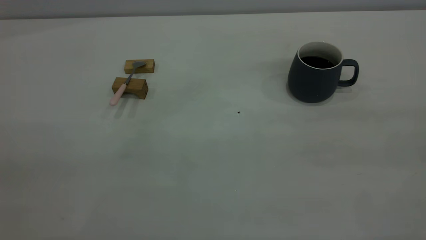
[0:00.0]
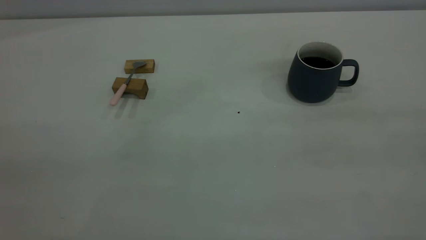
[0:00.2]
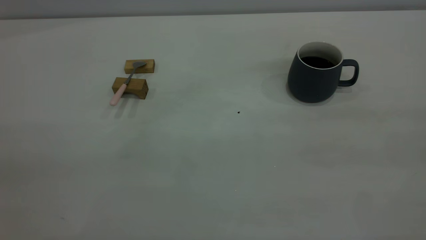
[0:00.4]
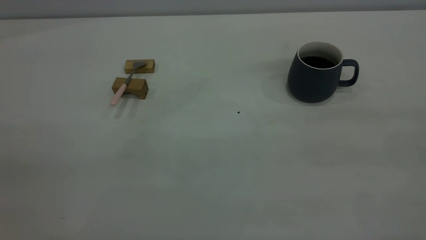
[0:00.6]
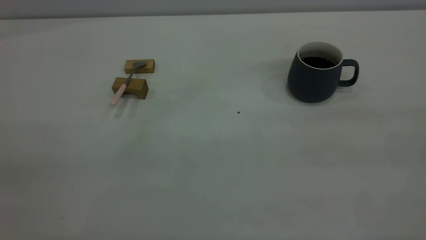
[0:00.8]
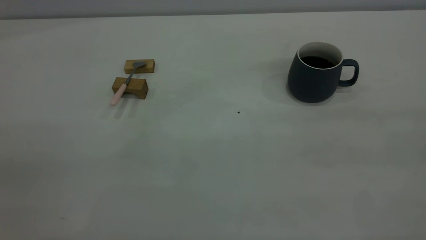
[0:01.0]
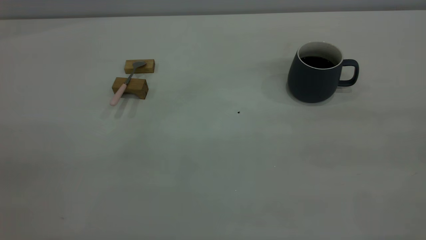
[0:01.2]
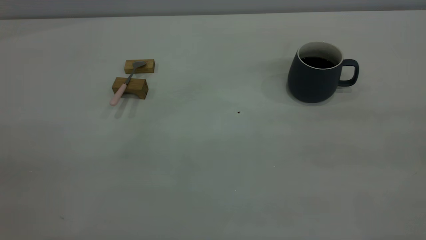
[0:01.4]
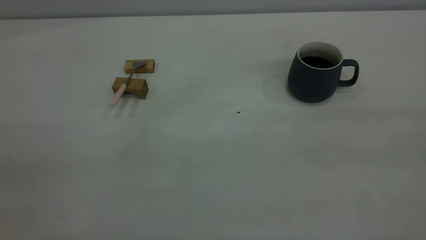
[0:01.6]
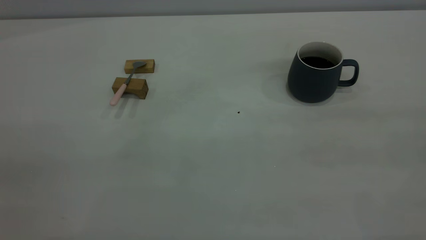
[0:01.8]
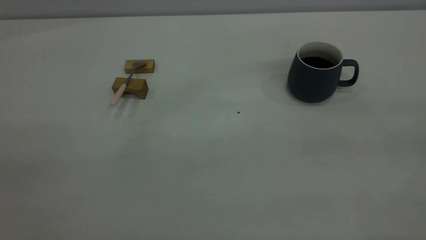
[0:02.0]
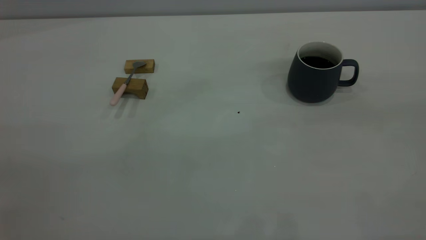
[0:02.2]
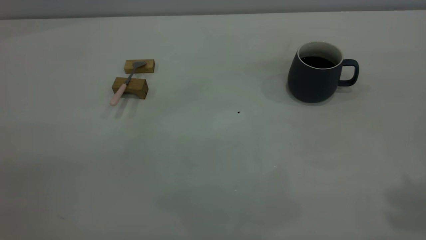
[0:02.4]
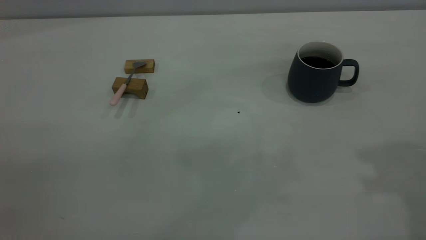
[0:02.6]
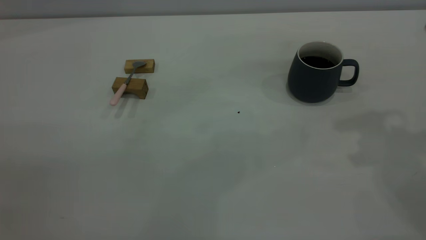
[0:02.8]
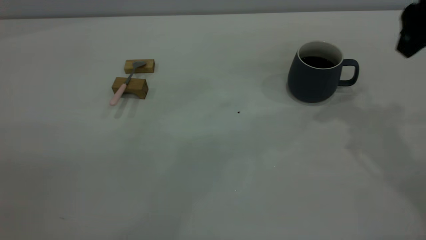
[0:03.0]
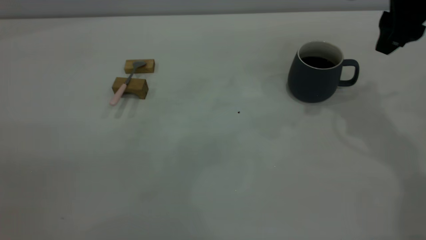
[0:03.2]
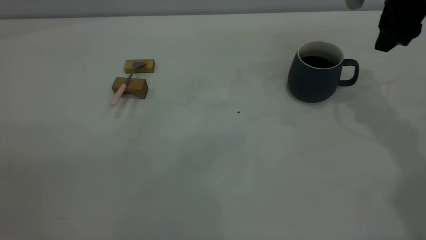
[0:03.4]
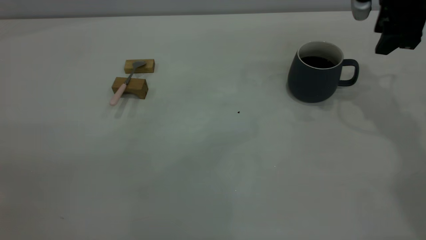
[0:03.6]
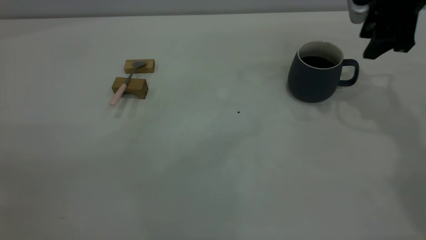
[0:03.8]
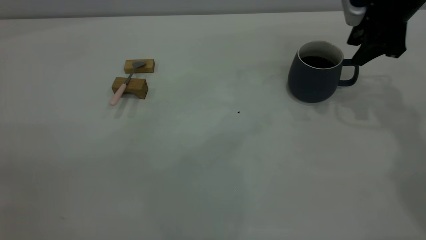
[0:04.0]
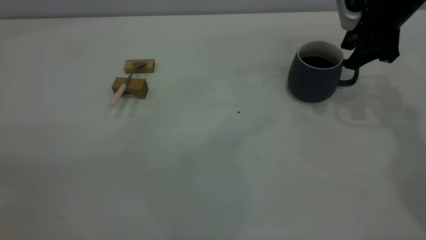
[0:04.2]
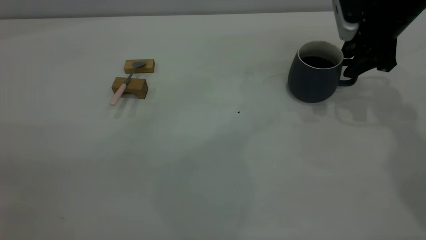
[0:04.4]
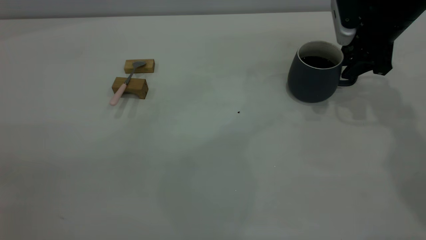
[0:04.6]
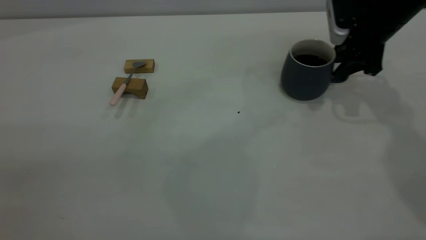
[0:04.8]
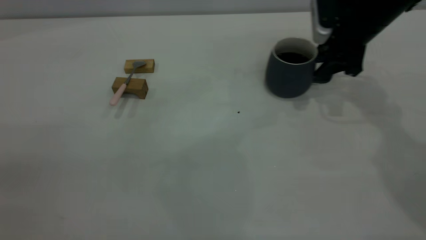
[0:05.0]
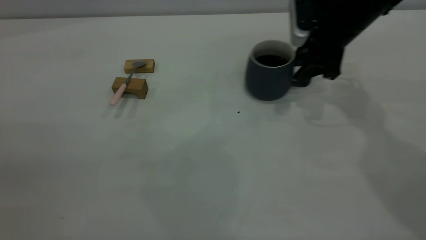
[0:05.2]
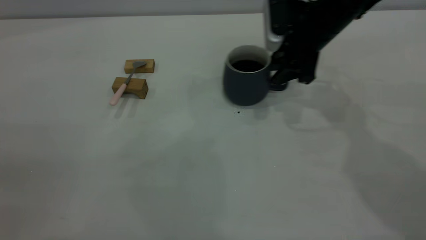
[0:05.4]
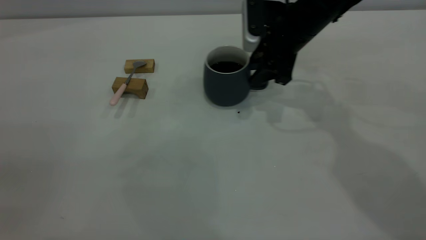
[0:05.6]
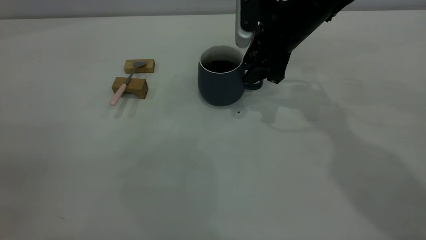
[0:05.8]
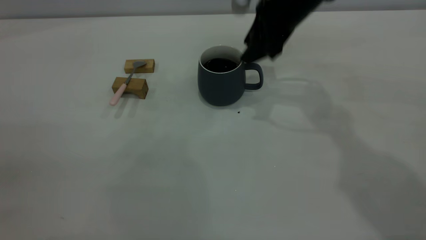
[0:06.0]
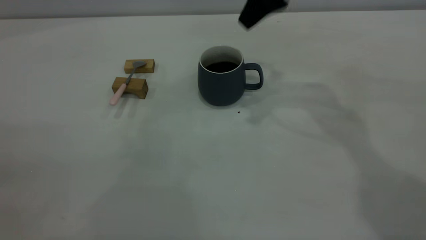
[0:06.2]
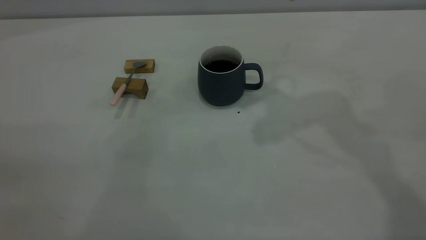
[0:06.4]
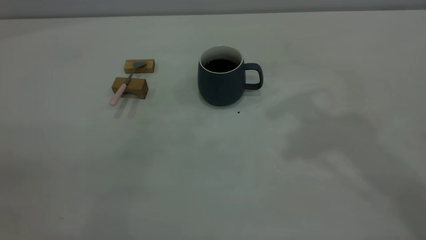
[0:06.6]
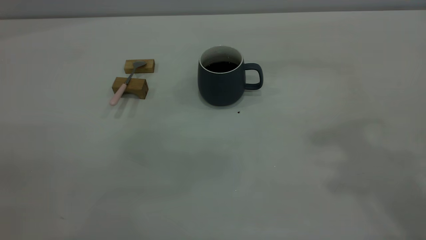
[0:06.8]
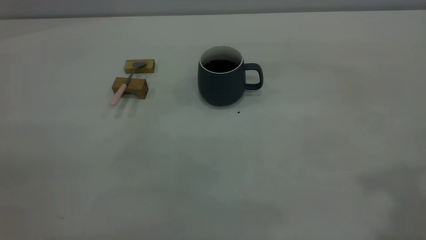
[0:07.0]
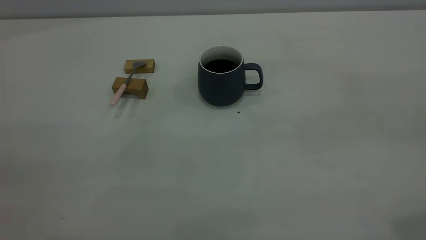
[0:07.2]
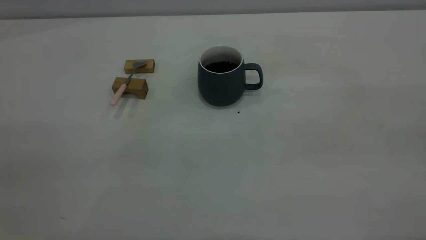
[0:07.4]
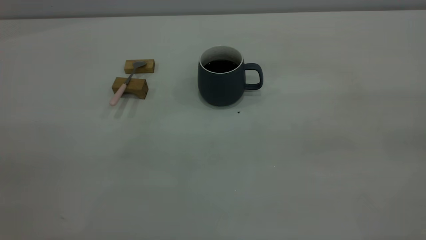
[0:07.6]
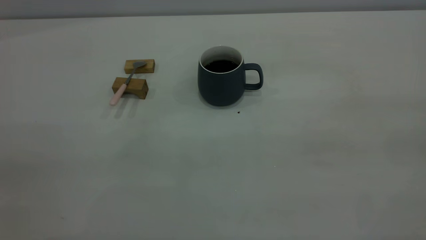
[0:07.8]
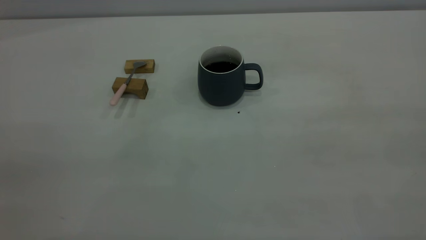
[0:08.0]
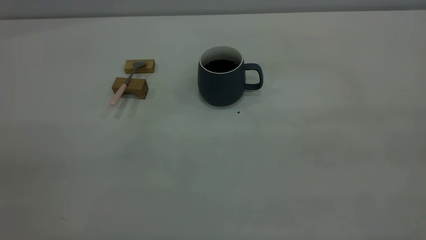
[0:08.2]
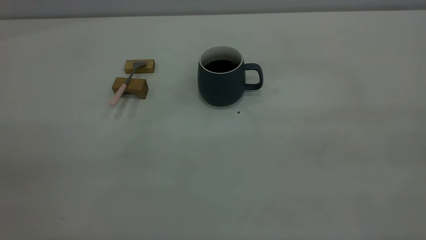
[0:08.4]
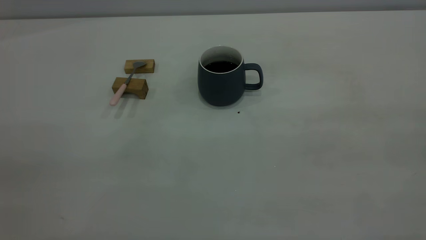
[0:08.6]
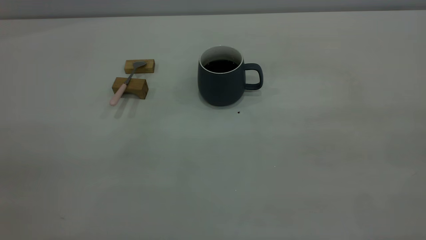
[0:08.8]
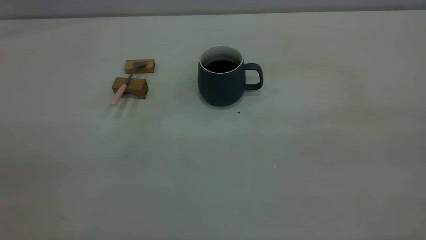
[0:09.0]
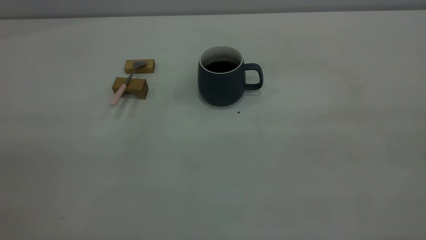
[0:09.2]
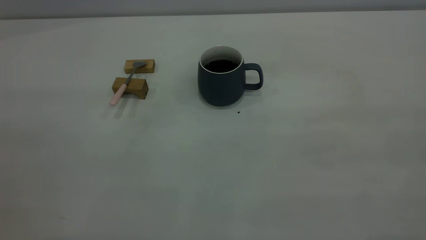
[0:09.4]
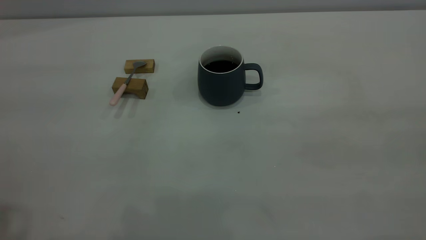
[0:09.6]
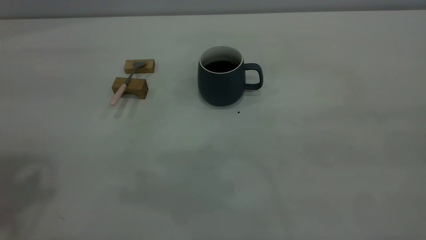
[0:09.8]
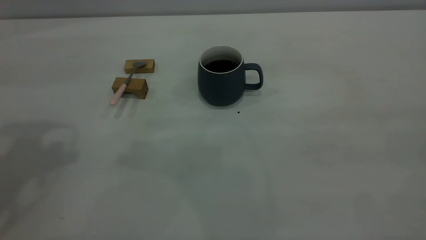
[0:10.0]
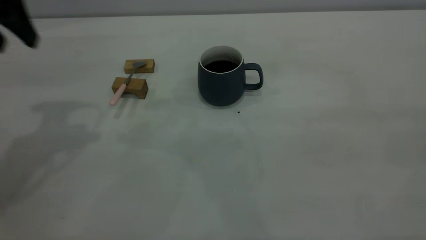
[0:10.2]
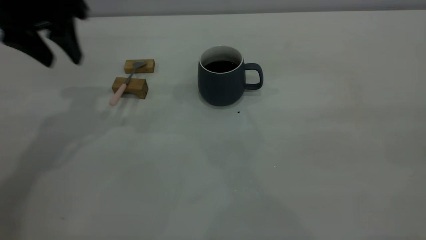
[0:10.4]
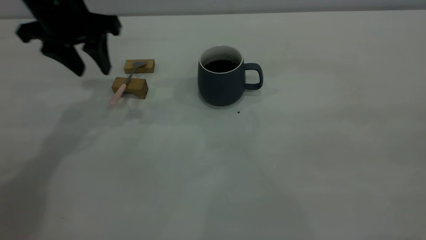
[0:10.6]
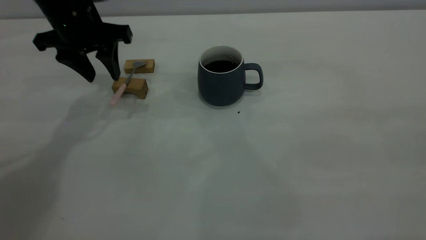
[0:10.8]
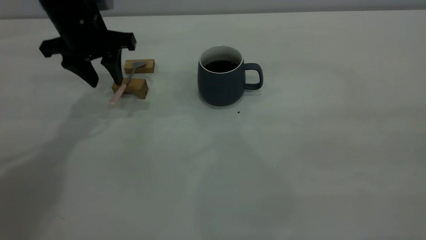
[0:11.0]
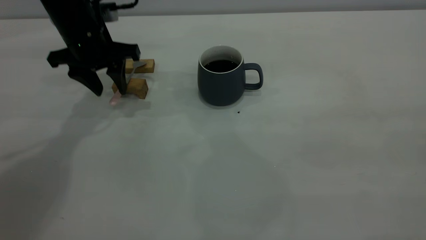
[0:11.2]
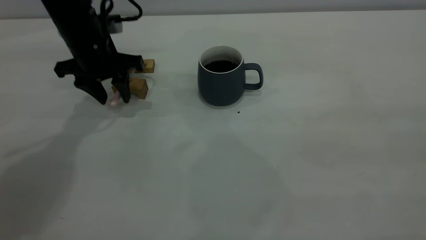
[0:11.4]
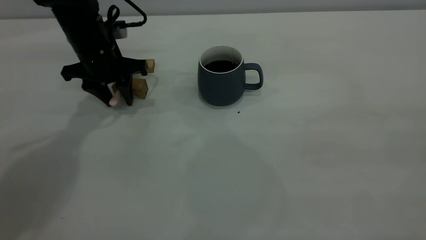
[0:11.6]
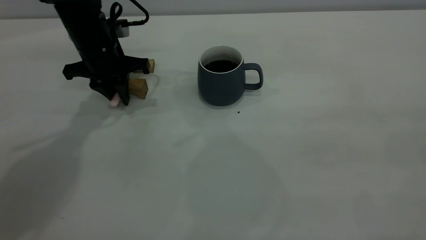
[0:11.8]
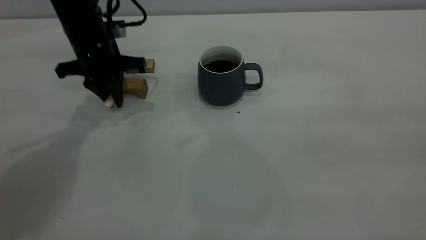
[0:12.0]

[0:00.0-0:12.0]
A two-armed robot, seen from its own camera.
Step, 0:00.0 to 0:06.0: Move the cup with coffee to the center of view.
0:00.0 to 0:01.6: Both grippers stay put.
0:01.6 to 0:03.0: The right gripper heads forward, covering approximately 35 cm.
0:03.0 to 0:04.4: The right gripper heads downward and forward, covering roughly 15 cm.
0:04.4 to 0:06.0: The right gripper goes some 15 cm to the left.
0:06.0 to 0:07.6: The right gripper goes about 50 cm backward, to the right and upward.
0:09.0 to 0:10.4: The left gripper travels forward by some 40 cm, and opens up.
0:10.4 to 0:12.0: The left gripper goes roughly 10 cm downward and forward, and closes up.

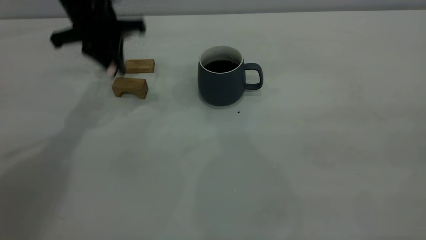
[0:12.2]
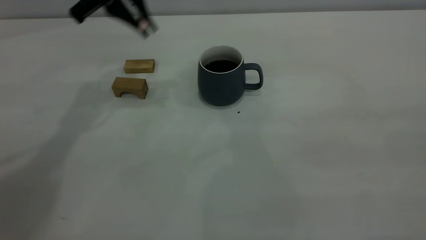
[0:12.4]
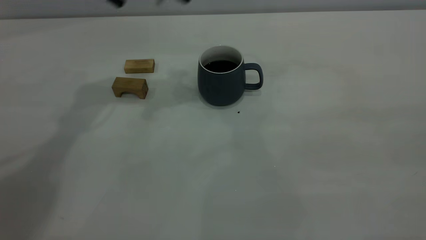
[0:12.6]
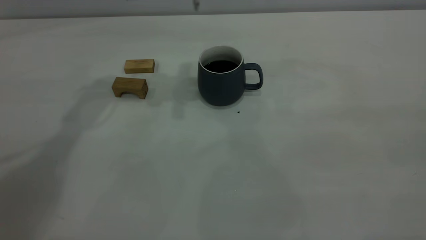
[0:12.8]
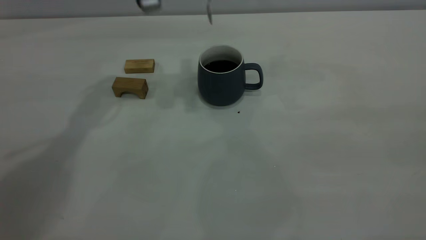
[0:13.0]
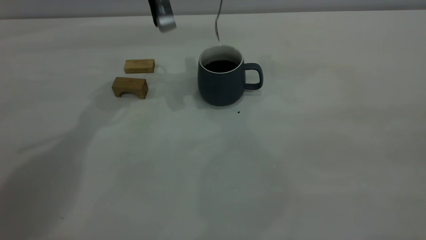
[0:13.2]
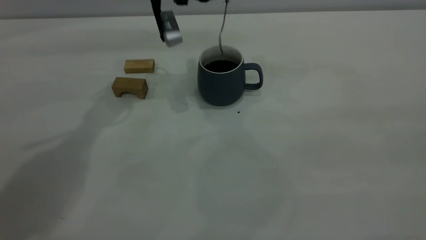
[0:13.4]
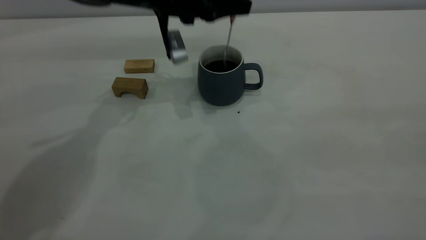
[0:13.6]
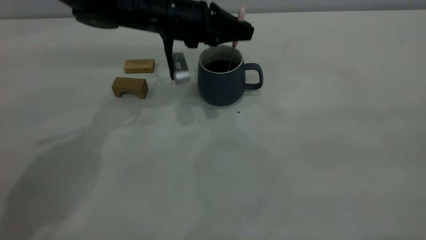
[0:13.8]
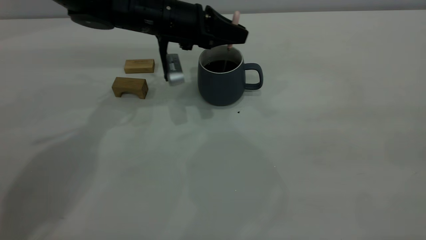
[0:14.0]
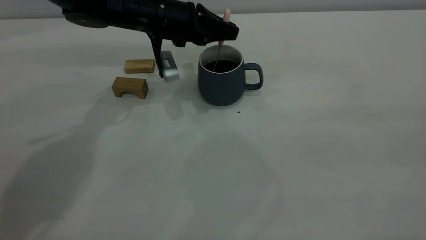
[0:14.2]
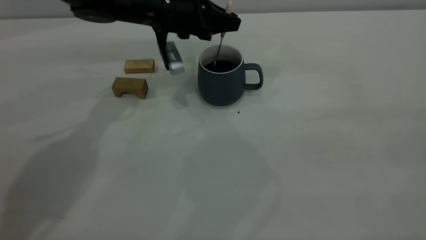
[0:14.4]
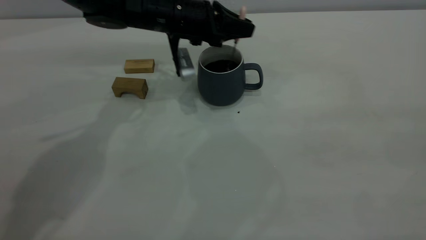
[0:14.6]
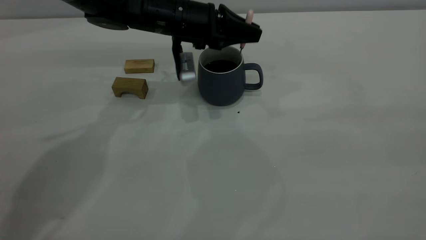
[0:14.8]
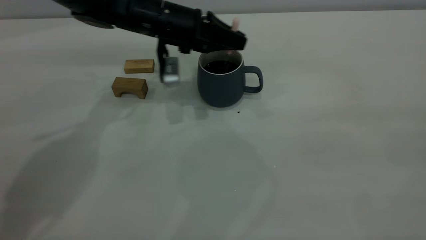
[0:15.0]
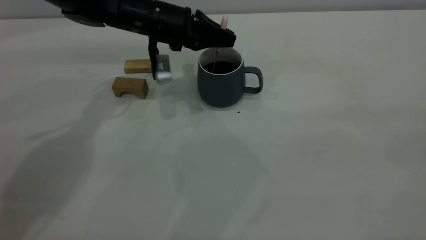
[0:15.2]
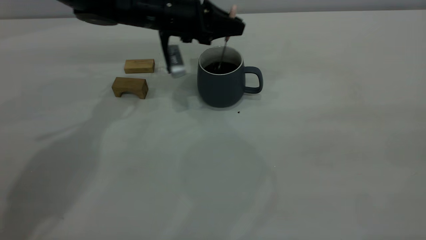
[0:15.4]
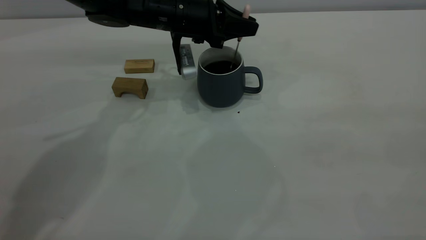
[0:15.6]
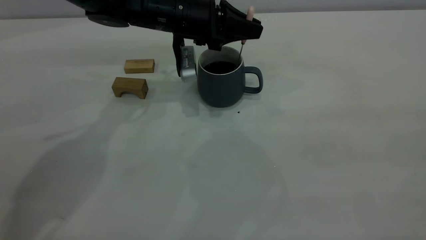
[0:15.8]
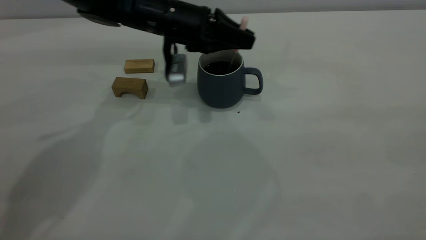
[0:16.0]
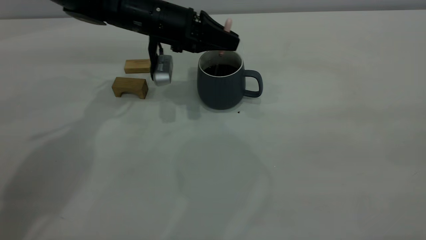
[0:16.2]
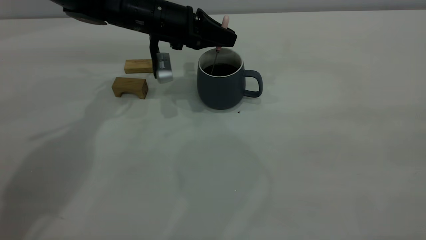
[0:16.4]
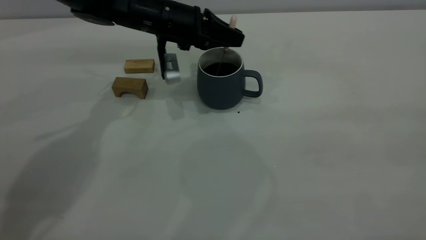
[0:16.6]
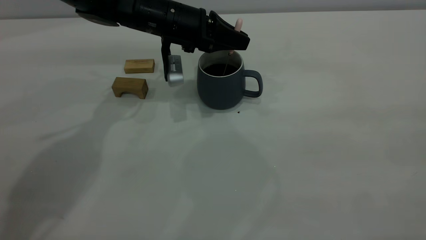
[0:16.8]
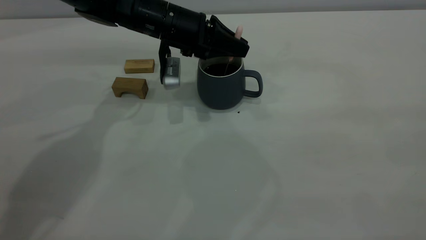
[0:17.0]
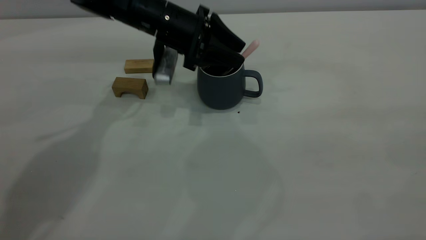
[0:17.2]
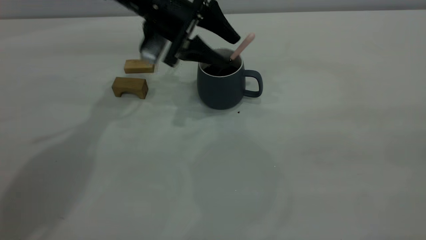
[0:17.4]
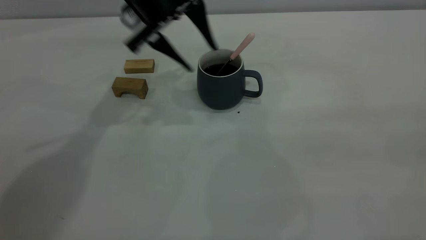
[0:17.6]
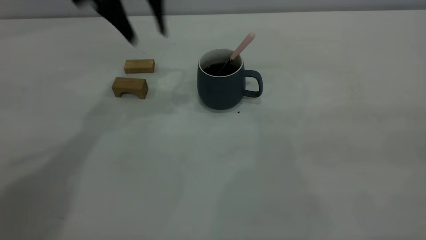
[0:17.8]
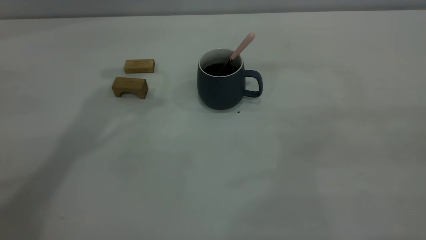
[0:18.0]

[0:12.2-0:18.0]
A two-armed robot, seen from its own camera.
Step, 0:12.4 to 0:17.6: Stir the coffee in the cup.
0:12.2 to 0:13.6: The left gripper heads to the right, covering some 10 cm.
0:13.6 to 0:16.6: The grippers stay close to where they were, moving slightly.
0:16.6 to 0:18.0: The left gripper moves upward, approximately 25 cm, and opens.
